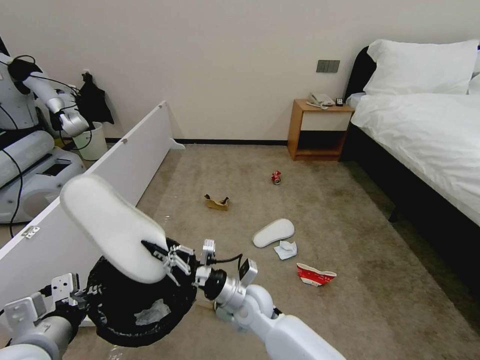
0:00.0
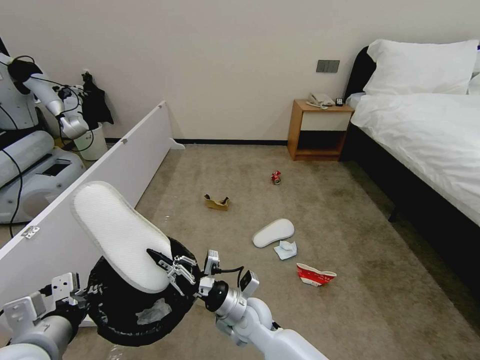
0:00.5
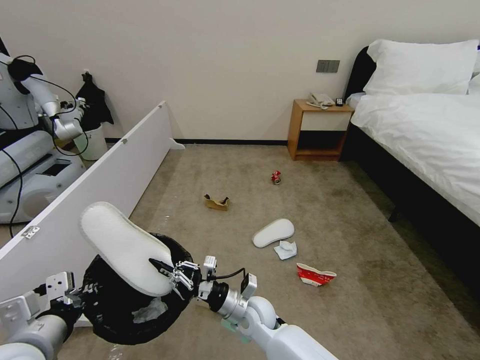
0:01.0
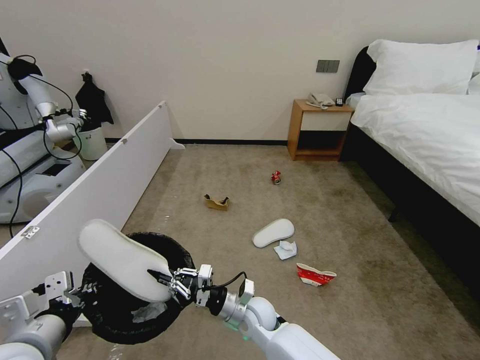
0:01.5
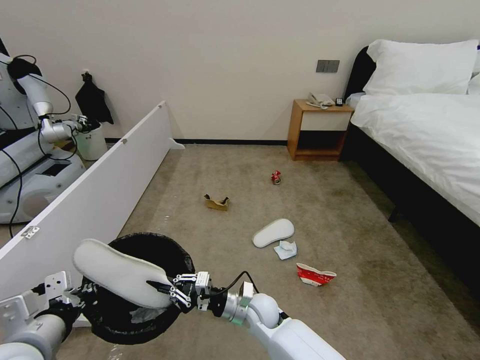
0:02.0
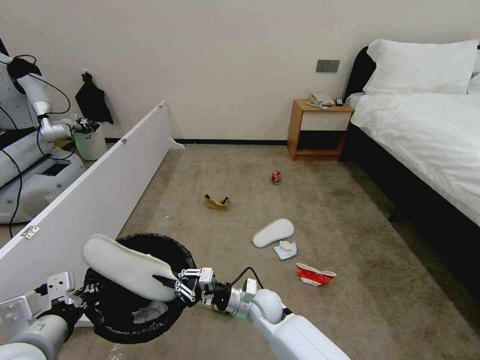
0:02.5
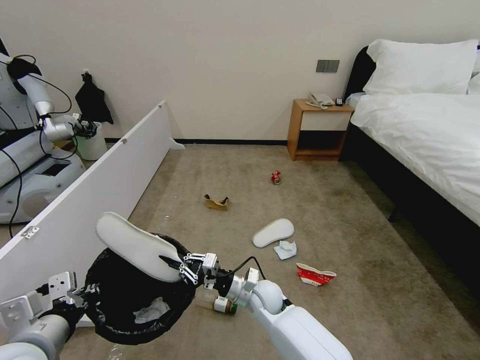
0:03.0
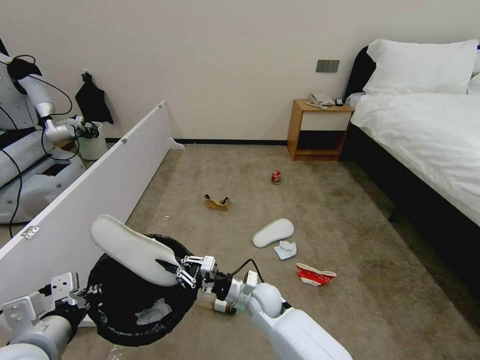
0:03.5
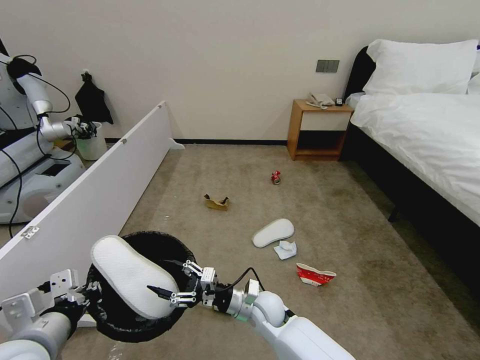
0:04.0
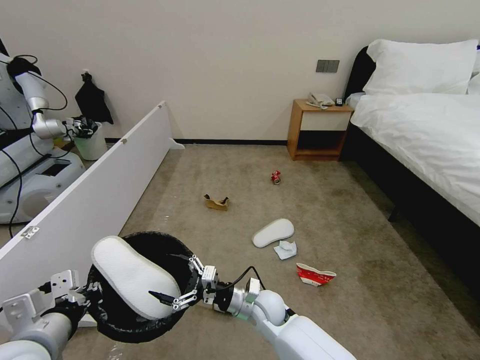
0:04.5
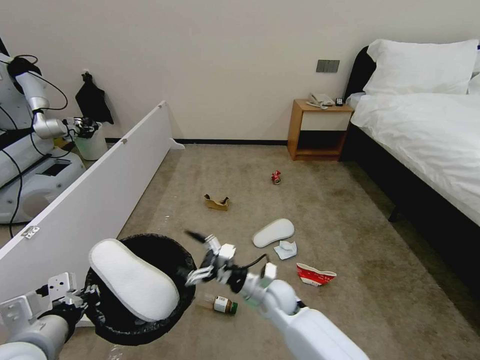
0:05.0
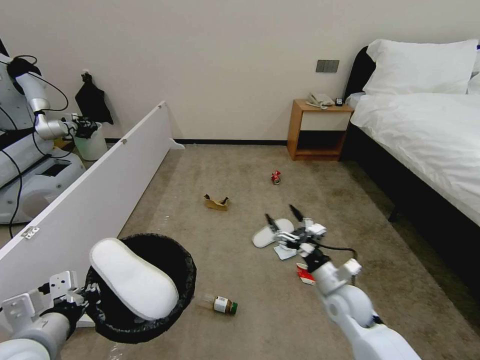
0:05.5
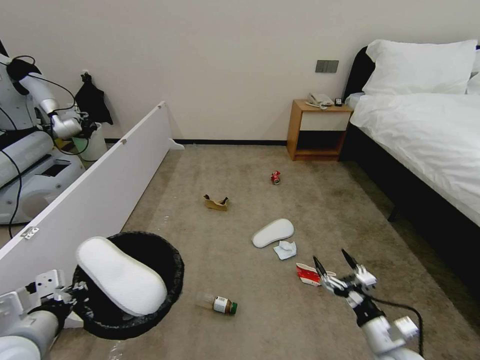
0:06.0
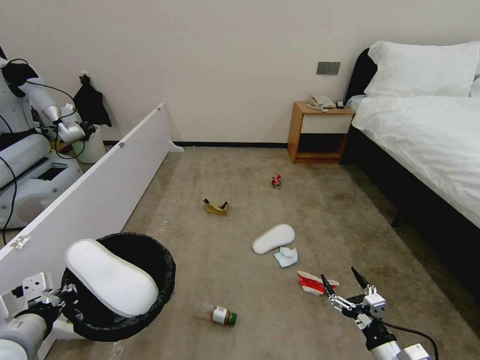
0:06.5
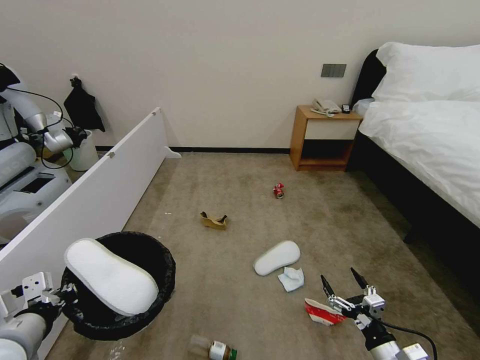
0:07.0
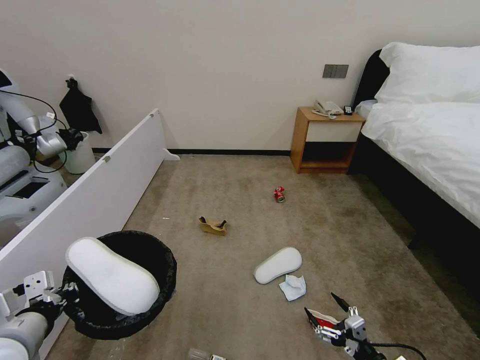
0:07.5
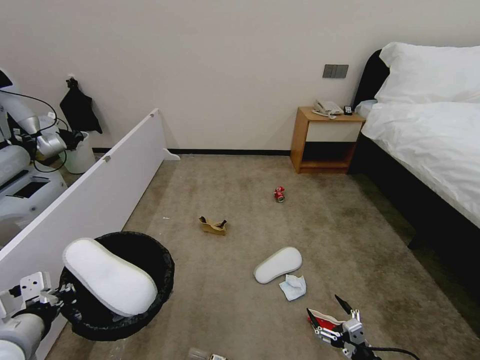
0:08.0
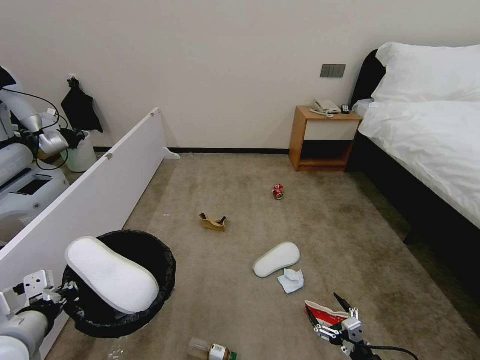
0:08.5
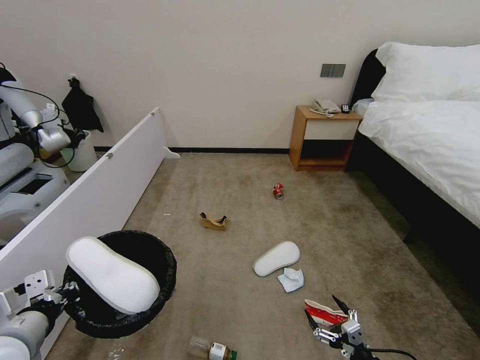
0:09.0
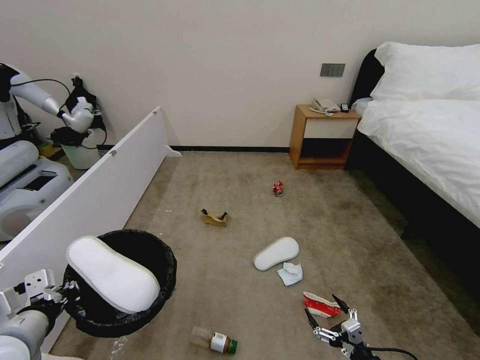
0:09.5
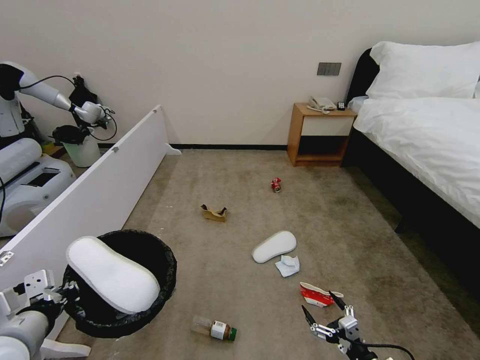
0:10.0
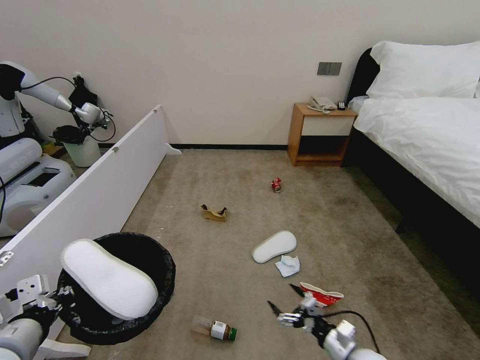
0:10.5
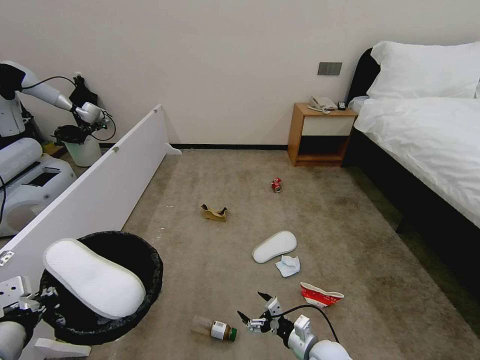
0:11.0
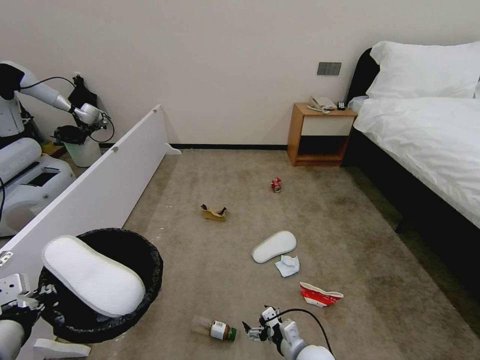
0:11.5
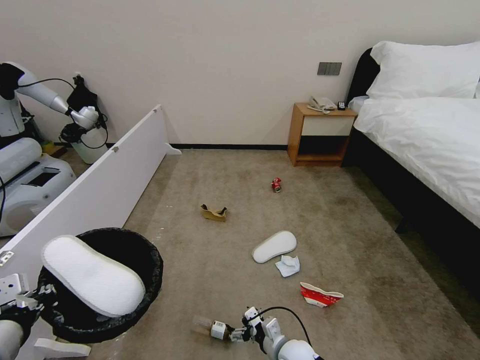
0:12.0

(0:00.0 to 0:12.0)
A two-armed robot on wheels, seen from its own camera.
Task of the whole recording: Pick up the trash bin, then pick up the garbage from the floor and place it into the trash bin.
0:00.0 - 0:02.0: The right gripper is displaced downward by roughly 5 cm.
0:02.0 - 0:04.0: The right gripper opens its fingers.
0:04.0 - 0:06.0: The right gripper travels to the right and backward by some 30 cm.
0:06.0 - 0:08.0: The right gripper travels backward and downward by roughly 10 cm.
0:08.0 - 0:10.0: The grippers make only small movements.
0:10.0 - 0:12.0: The right gripper moves to the left and forward, about 25 cm.

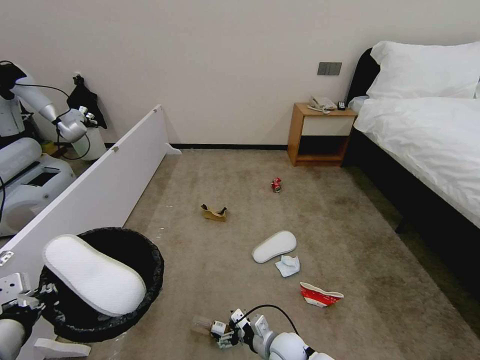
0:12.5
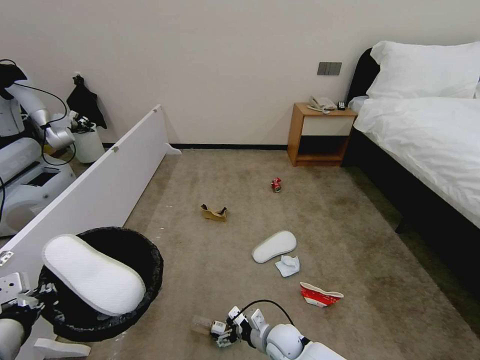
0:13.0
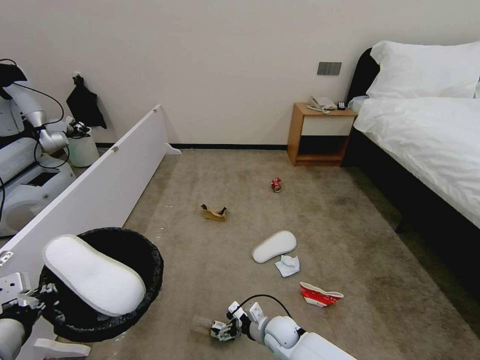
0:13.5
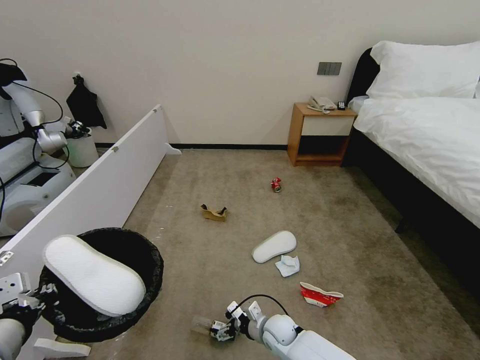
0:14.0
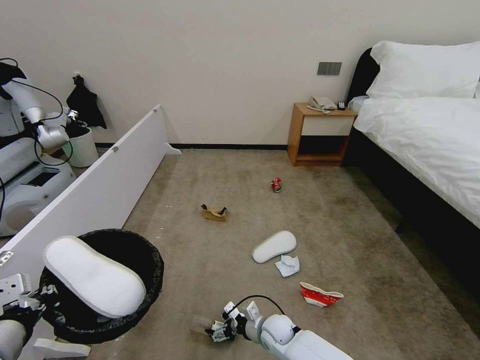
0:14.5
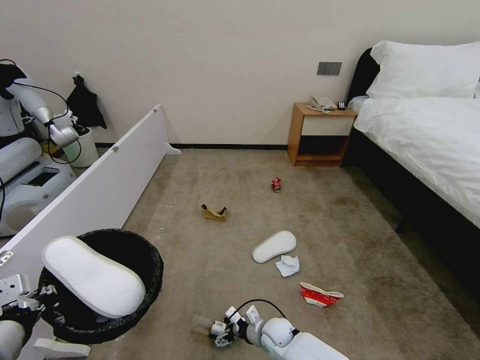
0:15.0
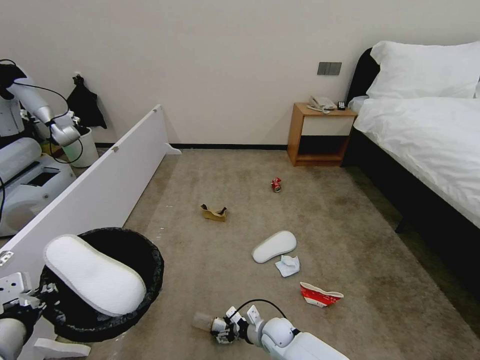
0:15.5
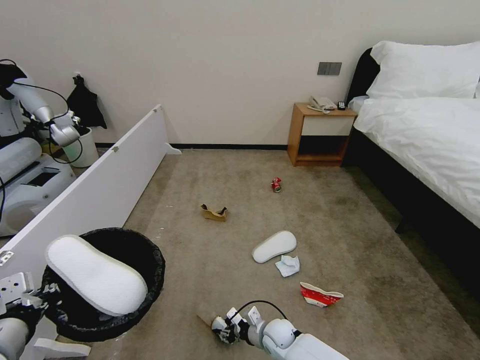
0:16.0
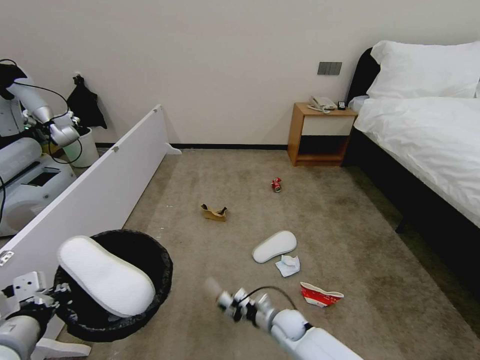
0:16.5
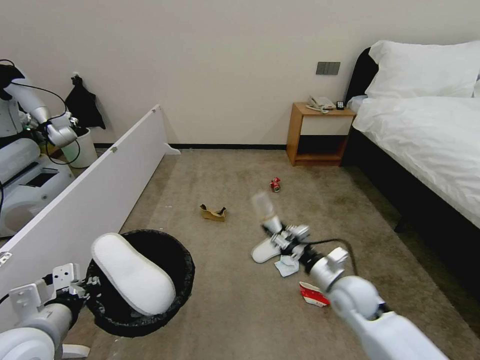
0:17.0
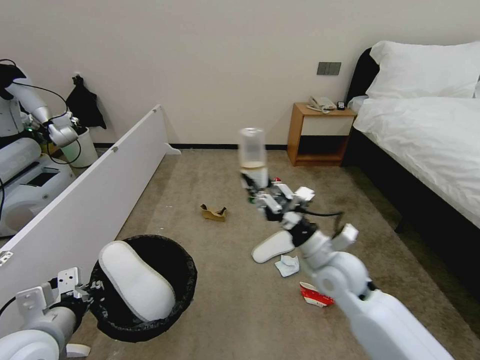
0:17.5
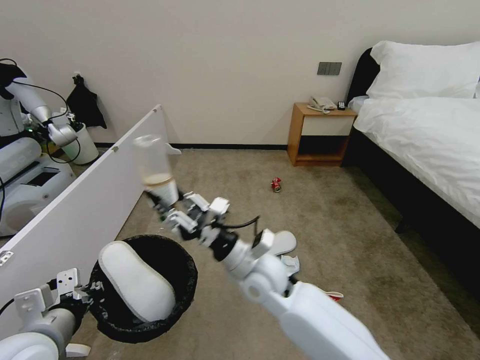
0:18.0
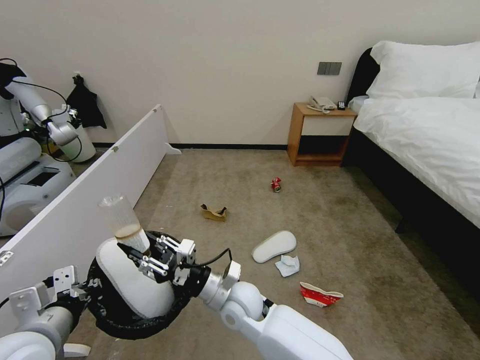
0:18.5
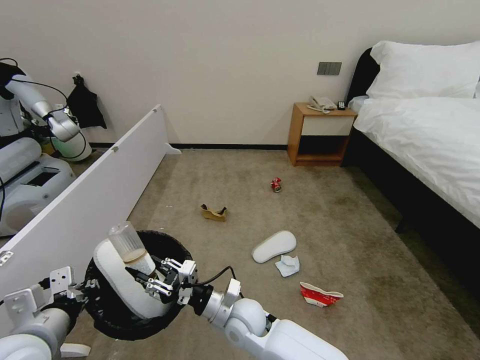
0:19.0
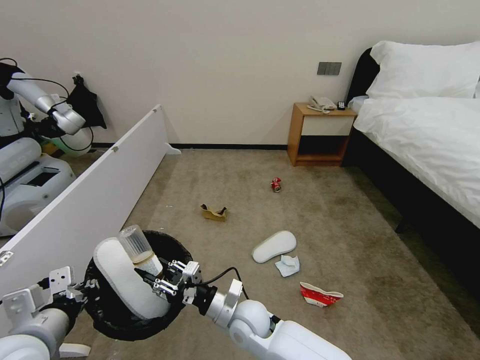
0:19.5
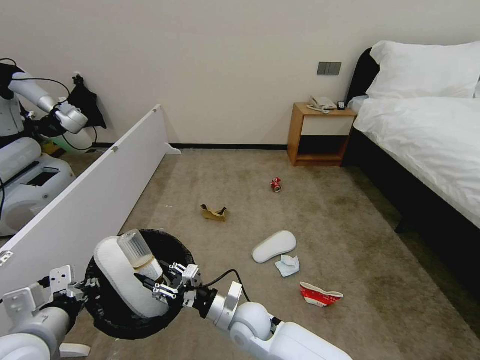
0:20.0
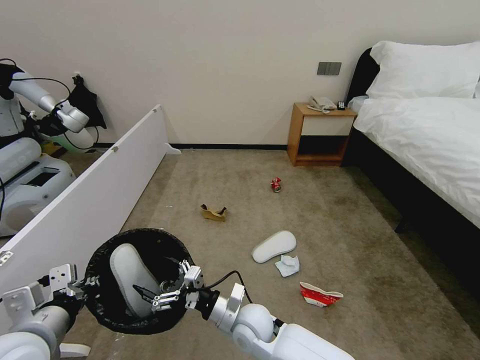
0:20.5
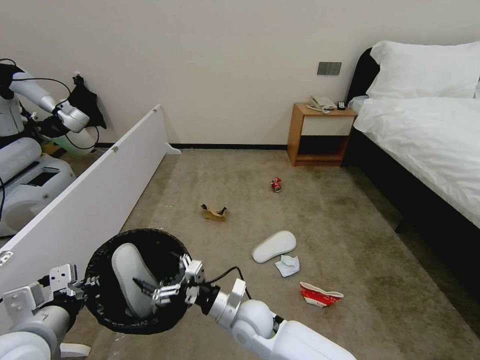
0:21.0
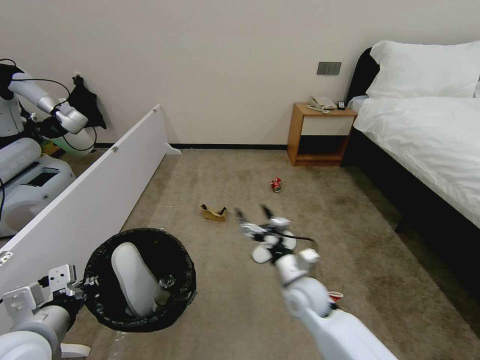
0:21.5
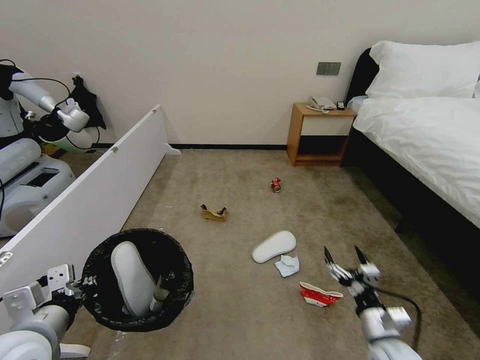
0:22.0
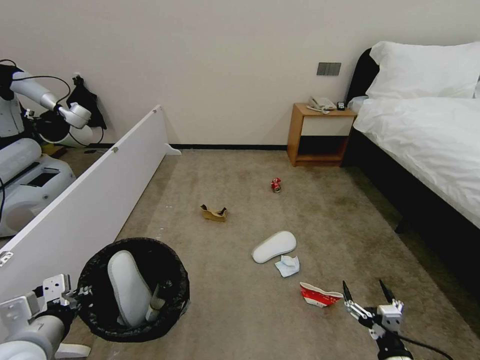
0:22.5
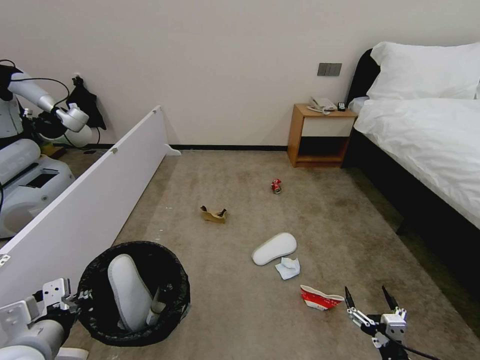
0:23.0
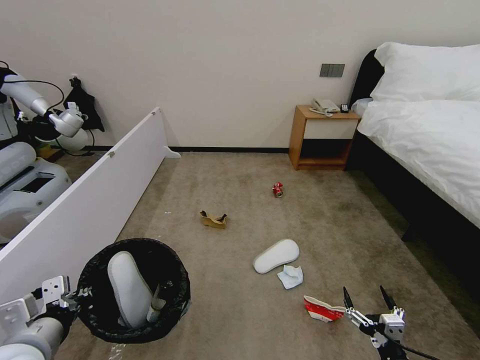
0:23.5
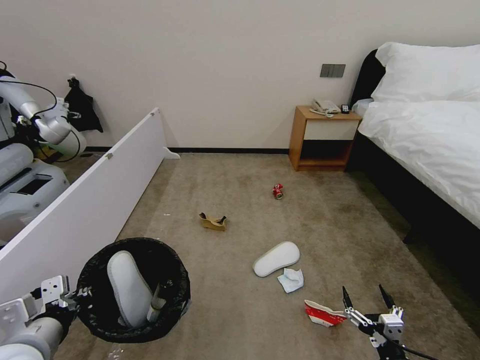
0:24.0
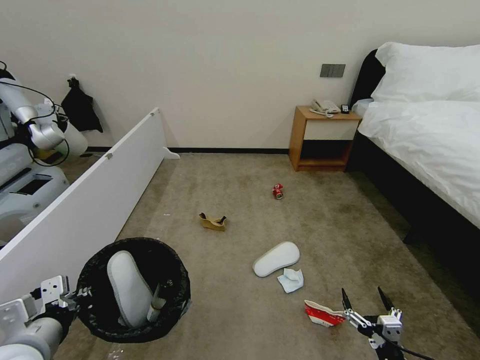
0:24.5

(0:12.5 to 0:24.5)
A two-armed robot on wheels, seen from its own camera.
Task of the whole recording: Pick up the trash bin, then pick up the garbage from the floor and place it into the trash bin.
0:12.5 - 0:14.5: The right gripper heads forward, covering roughly 5 cm.
0:14.5 - 0:16.5: The right gripper closes up.
0:16.5 - 0:18.5: The right gripper travels upward and to the left by roughly 25 cm.
0:18.5 - 0:20.5: The right gripper shifts some 5 cm downward, and opens its fingers.
0:20.5 - 0:22.5: The right gripper moves to the right and backward, roughly 35 cm.
0:22.5 - 0:24.5: The grippers stay close to where they were, moving slightly.

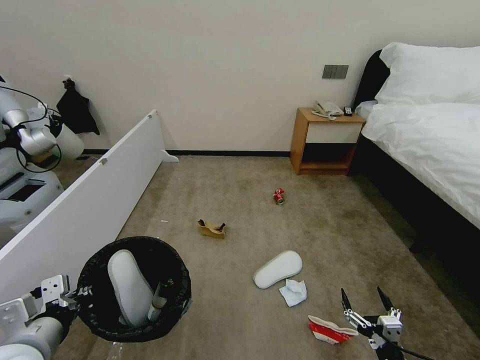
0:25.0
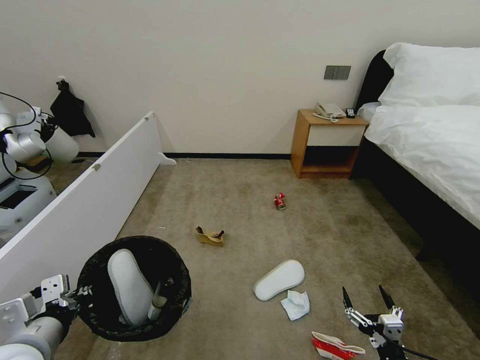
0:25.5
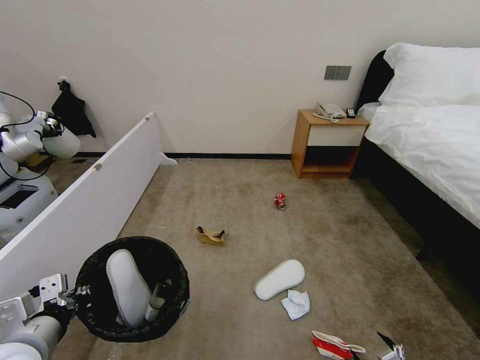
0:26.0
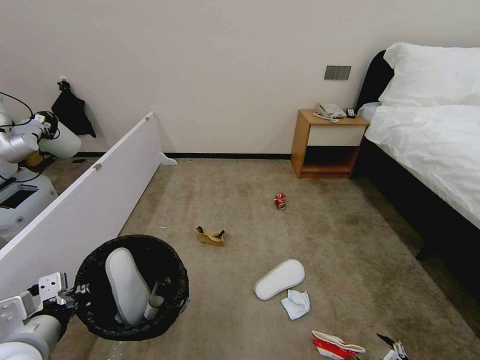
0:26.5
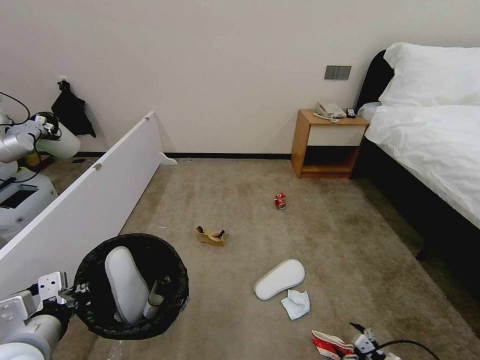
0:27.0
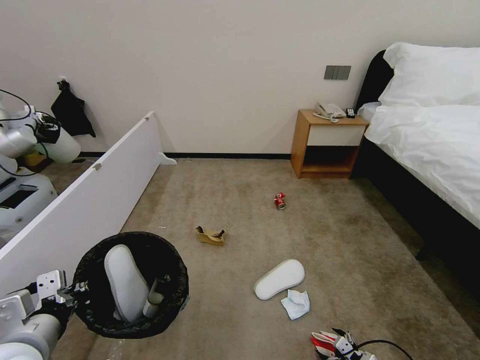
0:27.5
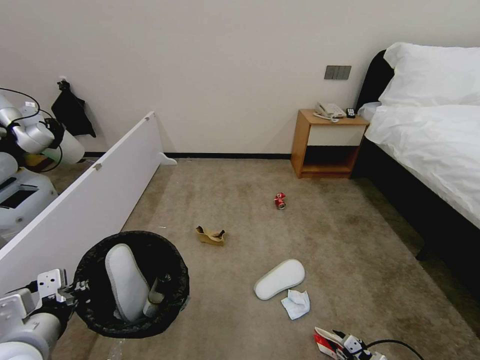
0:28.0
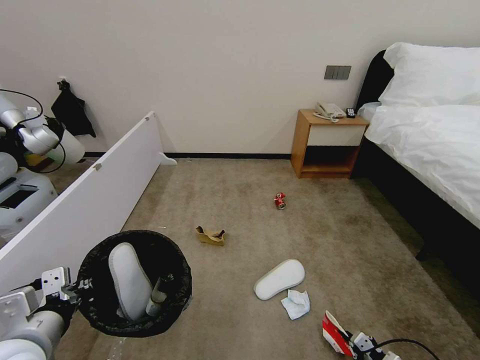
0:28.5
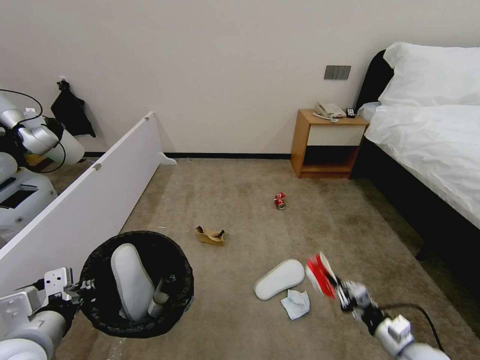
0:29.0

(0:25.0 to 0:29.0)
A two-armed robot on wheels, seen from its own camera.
Task of the whole recording: Pick up the trash bin, then pick up the garbage from the floor and place it into the trash bin.
0:25.0 - 0:27.0: The right gripper shifts approximately 15 cm to the right, downward and forward.
0:27.0 - 0:29.0: The right gripper travels upward by roughly 10 cm, and closes up.
